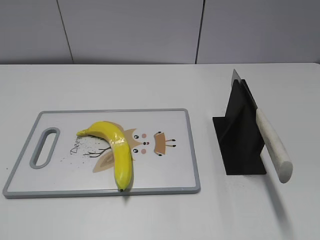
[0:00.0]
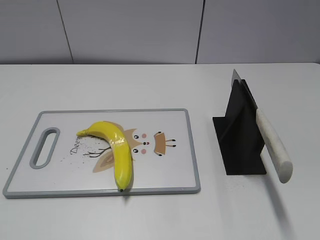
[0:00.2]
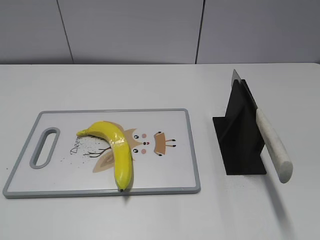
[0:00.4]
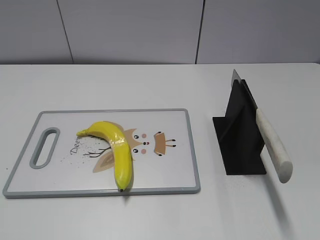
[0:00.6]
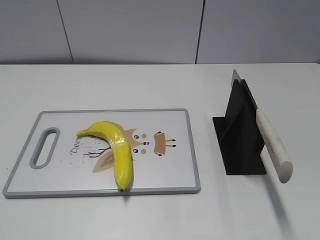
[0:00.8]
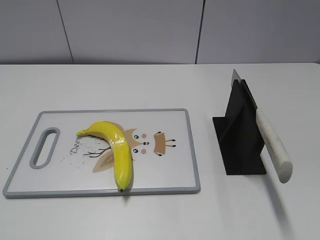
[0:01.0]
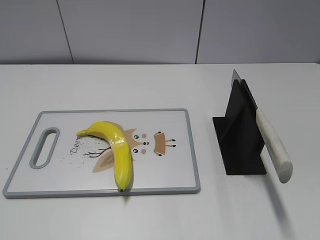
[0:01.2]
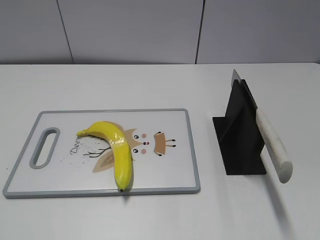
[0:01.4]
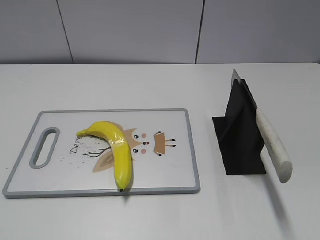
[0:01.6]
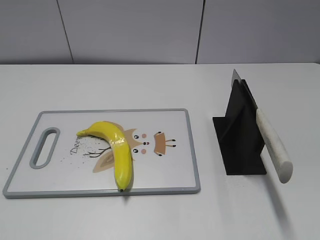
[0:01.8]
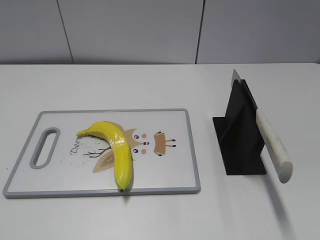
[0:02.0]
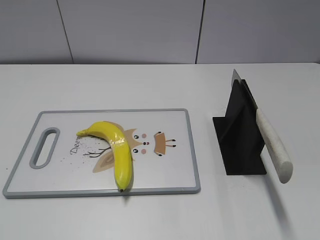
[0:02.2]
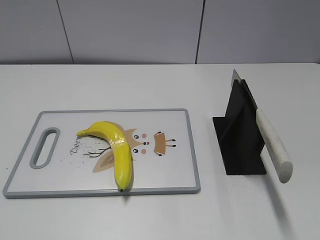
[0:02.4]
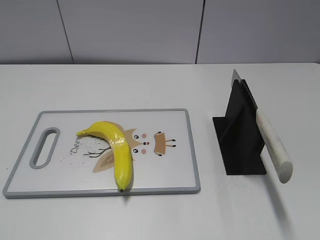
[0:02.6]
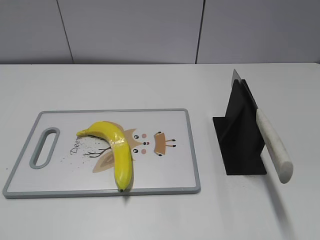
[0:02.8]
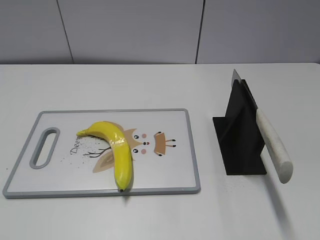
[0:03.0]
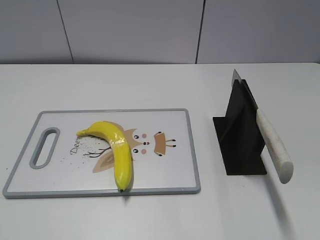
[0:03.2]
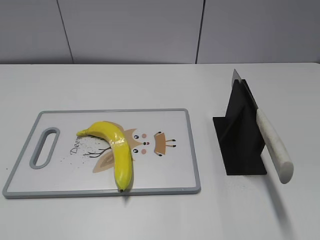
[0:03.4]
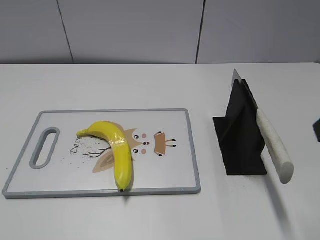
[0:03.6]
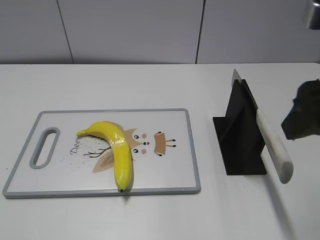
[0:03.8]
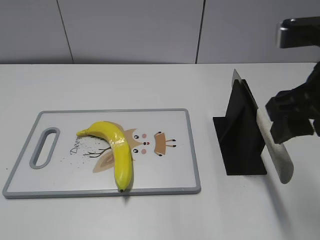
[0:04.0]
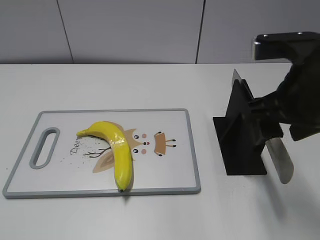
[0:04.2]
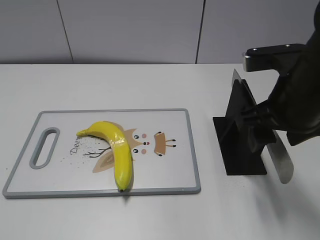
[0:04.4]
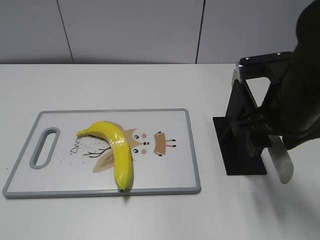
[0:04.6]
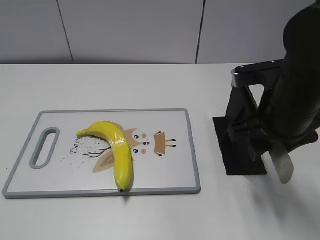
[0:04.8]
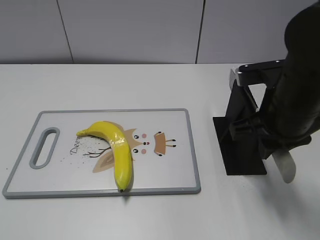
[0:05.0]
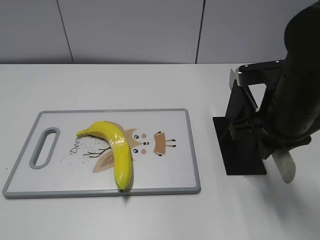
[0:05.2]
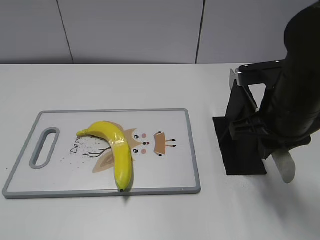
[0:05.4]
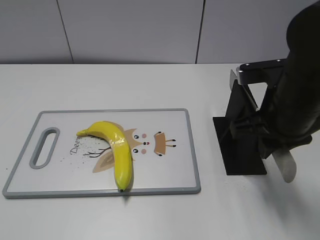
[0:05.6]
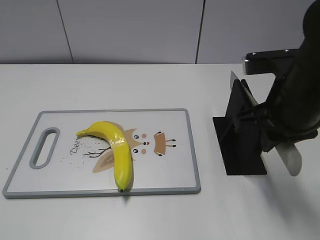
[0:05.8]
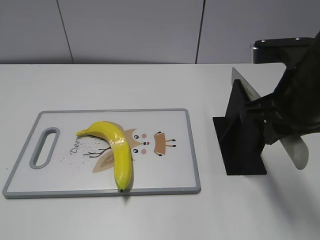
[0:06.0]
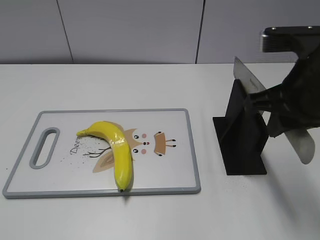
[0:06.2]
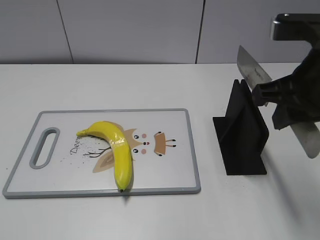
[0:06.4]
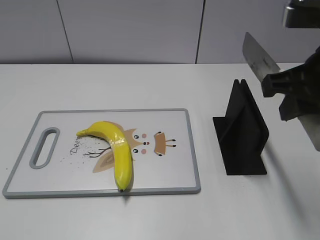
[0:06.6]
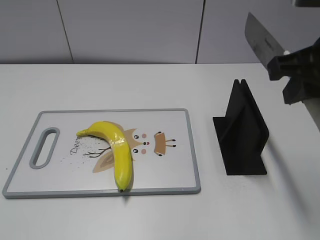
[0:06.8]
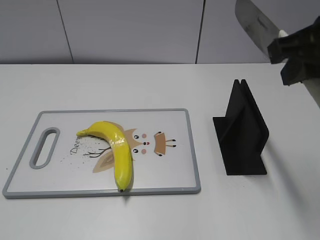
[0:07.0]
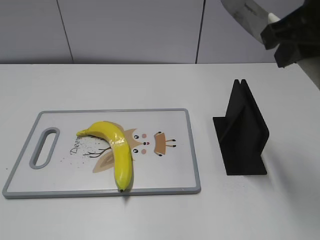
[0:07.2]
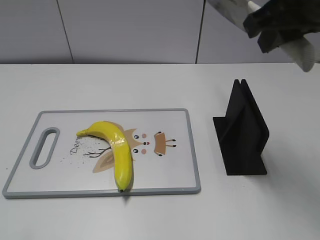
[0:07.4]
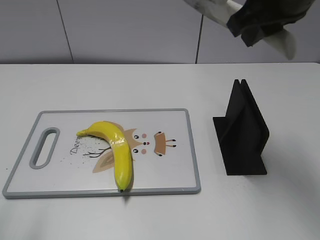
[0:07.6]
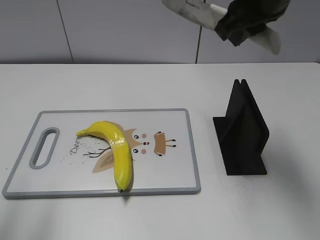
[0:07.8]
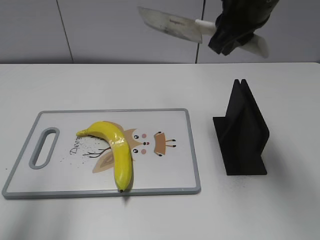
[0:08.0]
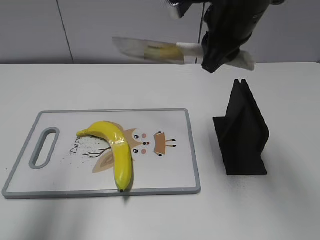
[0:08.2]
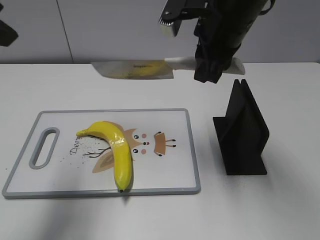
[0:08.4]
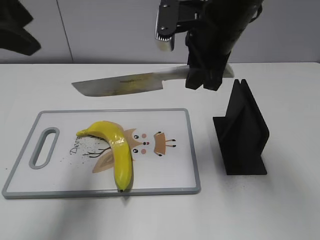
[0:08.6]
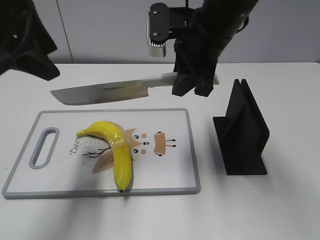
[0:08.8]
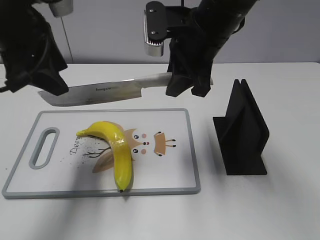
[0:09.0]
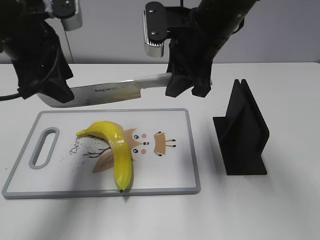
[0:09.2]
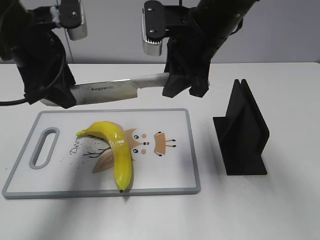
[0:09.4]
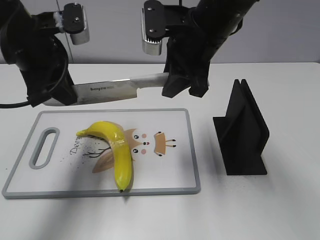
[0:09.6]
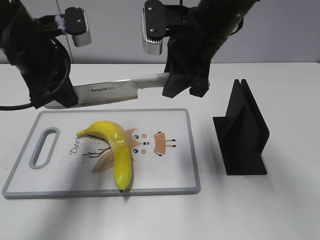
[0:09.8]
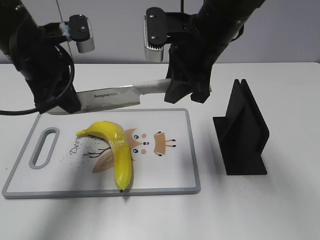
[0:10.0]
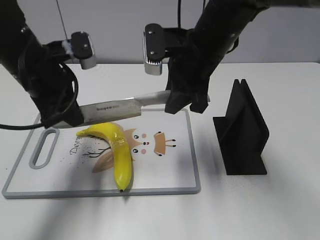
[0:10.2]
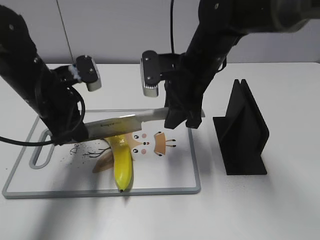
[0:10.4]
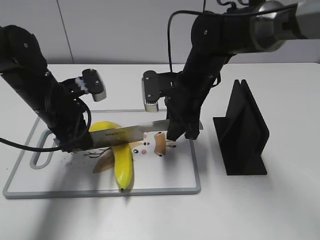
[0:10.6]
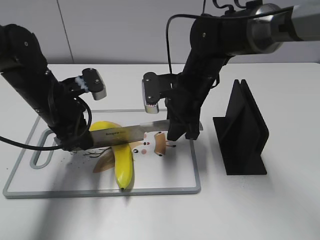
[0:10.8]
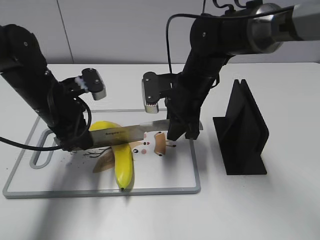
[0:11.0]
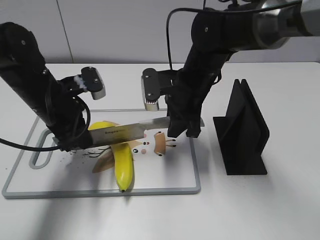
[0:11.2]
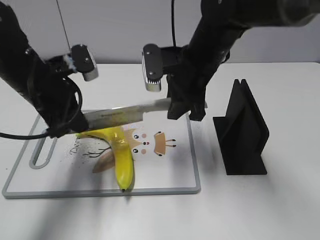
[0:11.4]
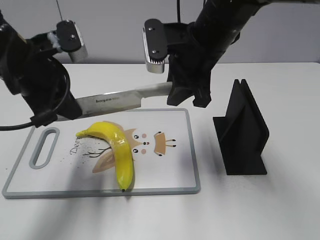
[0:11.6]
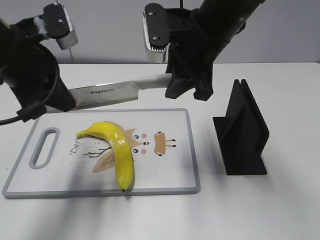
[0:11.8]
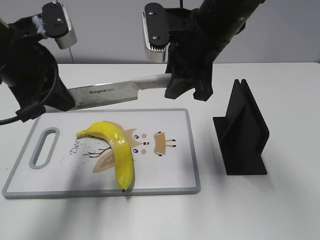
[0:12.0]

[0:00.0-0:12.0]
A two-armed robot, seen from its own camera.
Task of the whole recording: cut plastic banana.
Step, 0:00.0 to 0:06.4: Grab the knife handle with your right hand.
0:03.0 to 0:04.4: The right gripper moves forward, to the left and downward, approximately 20 cm.
0:04.4 to 0:06.0: The right gripper closes.
0:06.0 to 0:07.6: The right gripper heads upward and forward, covering approximately 10 cm.
0:07.6 to 0:09.0: The right gripper shifts about 10 cm downward and to the left; the left gripper travels forward and to the right by about 25 cm.
0:09.0 to 0:10.4: The left gripper moves downward, roughly 10 cm, and closes its fingers. The right gripper is displaced downward by about 5 cm.
0:10.4 to 0:12.0: Both grippers move upward, about 5 cm.

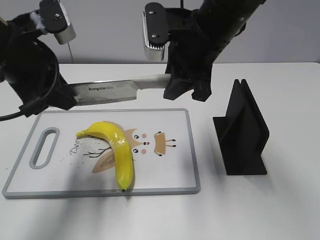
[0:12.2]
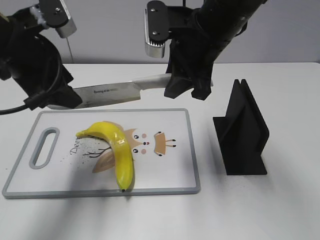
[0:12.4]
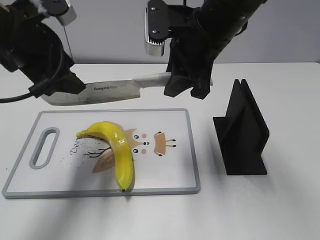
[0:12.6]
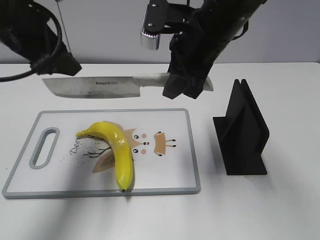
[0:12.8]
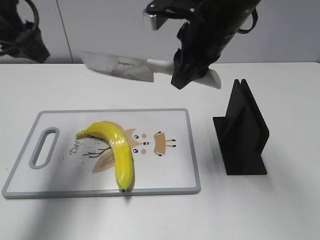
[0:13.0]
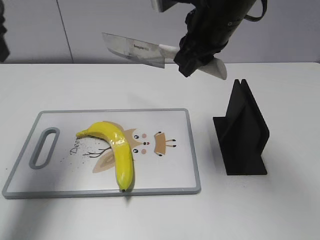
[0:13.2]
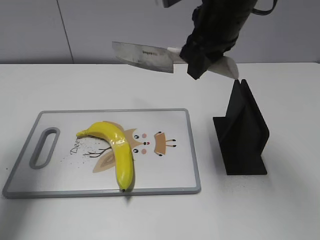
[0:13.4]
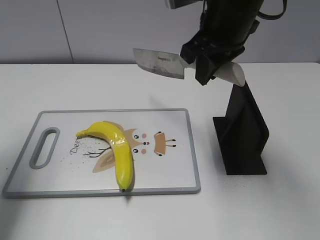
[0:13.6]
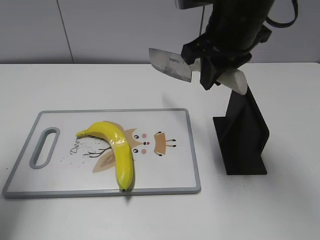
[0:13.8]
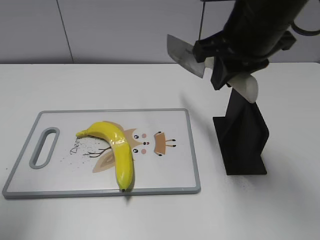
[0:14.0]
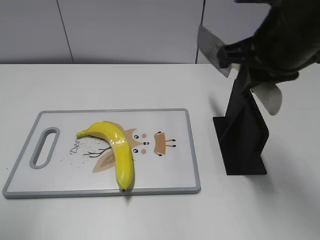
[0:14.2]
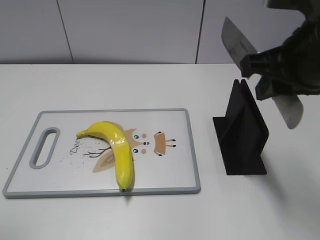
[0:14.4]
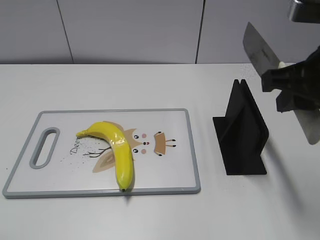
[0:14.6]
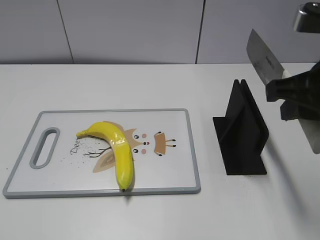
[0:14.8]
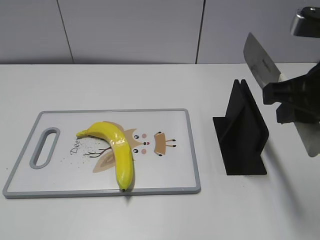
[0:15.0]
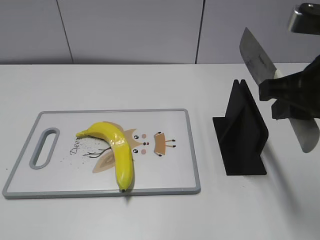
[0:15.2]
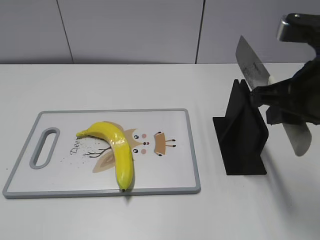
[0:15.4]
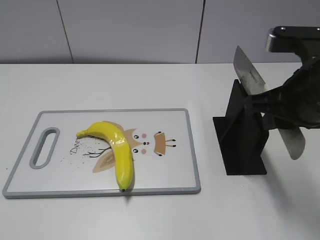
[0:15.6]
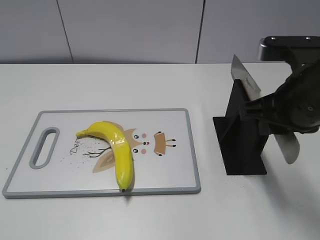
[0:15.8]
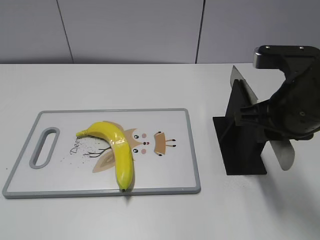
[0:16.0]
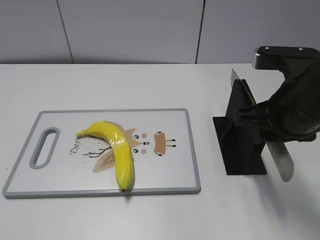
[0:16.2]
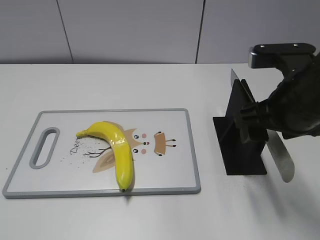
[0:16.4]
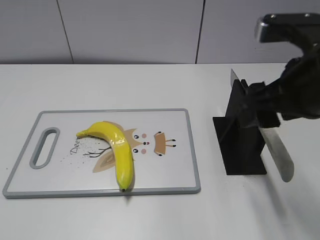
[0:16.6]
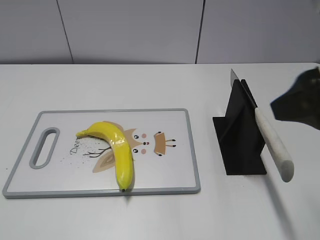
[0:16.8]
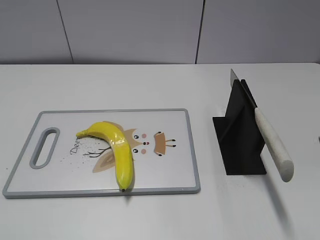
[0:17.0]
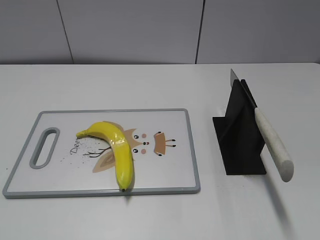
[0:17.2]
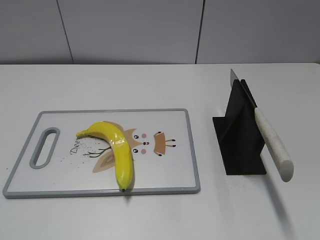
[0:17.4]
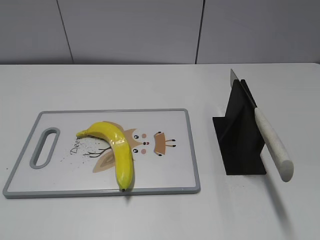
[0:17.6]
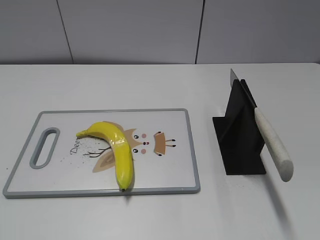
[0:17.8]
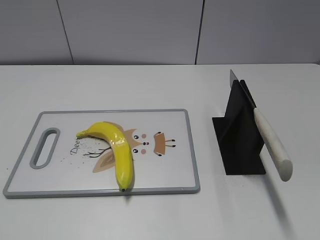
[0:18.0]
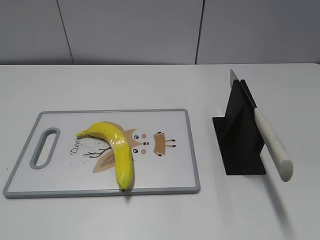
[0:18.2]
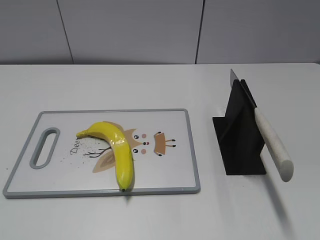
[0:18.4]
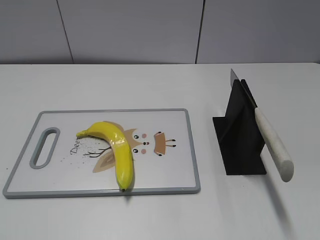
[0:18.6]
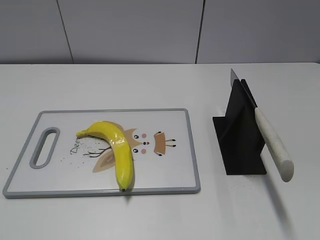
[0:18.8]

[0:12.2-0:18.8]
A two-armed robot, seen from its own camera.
Task of the whole recording: cut plastic banana.
Step, 0:13.4 to 0:14.4: Lift the knife with your right hand.
Step, 0:14.6 to 0:18.8: Place the knife on the storage rack with your right hand.
0:12.2 to 0:13.8: The left gripper travels to the left and upward by about 15 cm, and opens its fingers.
0:13.8 to 0:15.4: The right gripper goes roughly 15 cm backward and to the right. Meanwhile the left gripper travels backward by roughly 25 cm.
0:15.4 to 0:17.2: The right gripper travels backward and to the right by some 15 cm, and opens up.

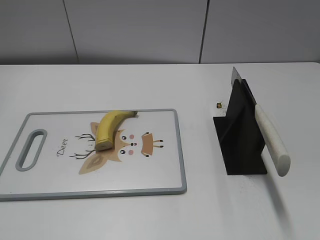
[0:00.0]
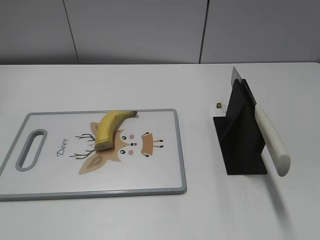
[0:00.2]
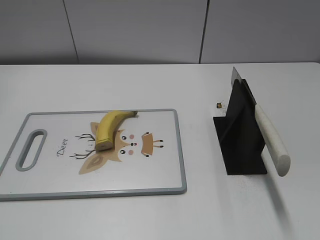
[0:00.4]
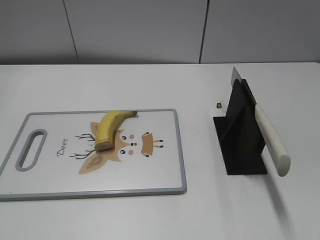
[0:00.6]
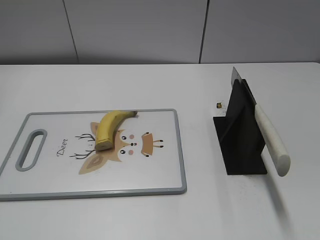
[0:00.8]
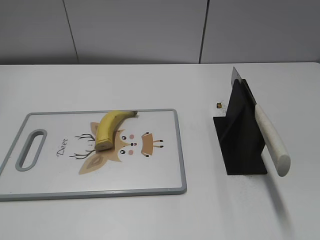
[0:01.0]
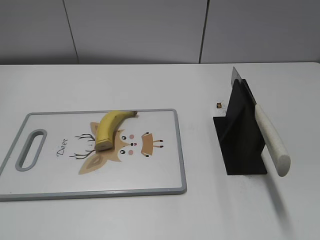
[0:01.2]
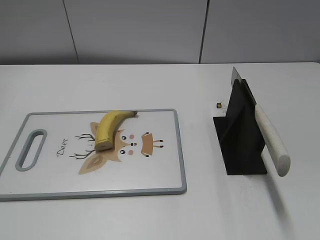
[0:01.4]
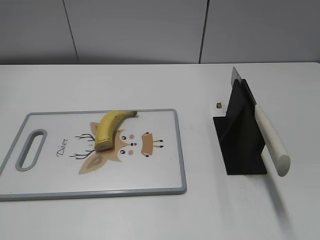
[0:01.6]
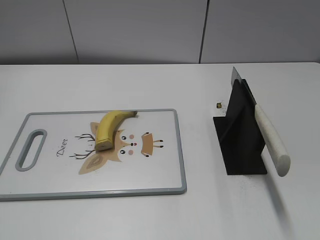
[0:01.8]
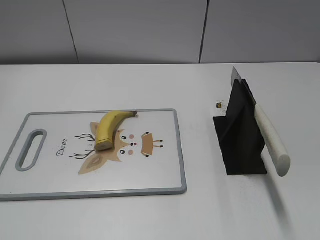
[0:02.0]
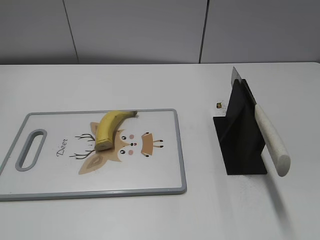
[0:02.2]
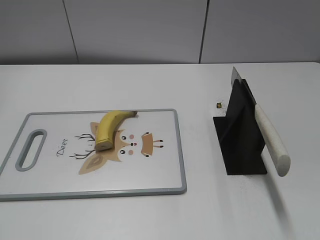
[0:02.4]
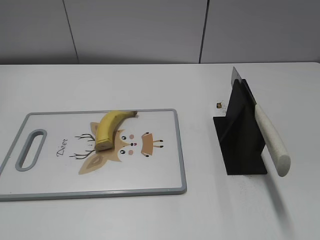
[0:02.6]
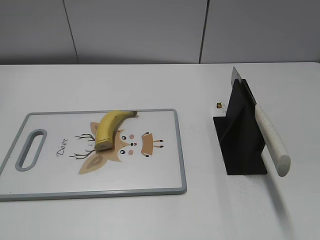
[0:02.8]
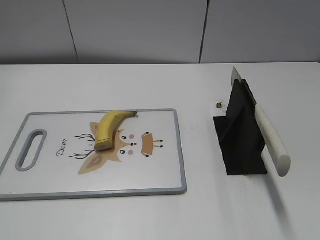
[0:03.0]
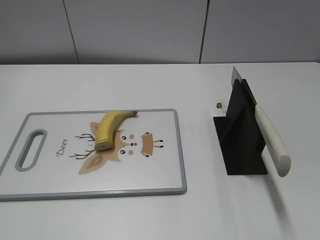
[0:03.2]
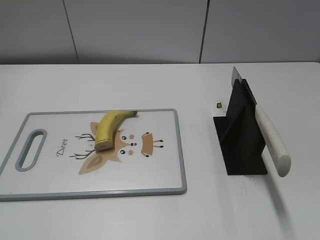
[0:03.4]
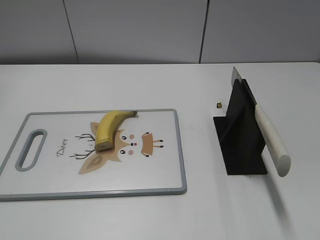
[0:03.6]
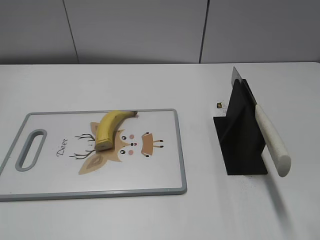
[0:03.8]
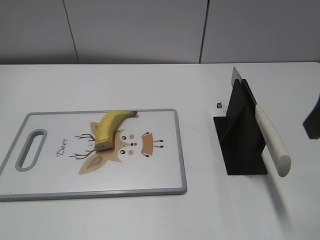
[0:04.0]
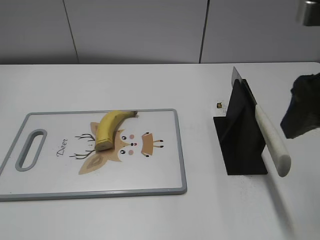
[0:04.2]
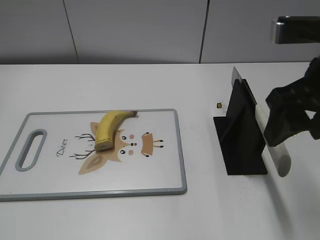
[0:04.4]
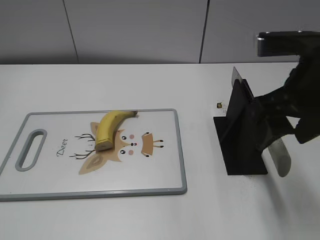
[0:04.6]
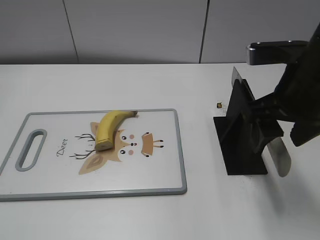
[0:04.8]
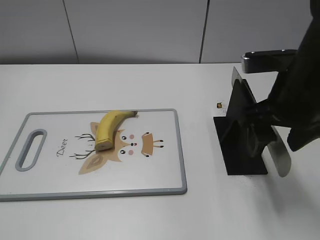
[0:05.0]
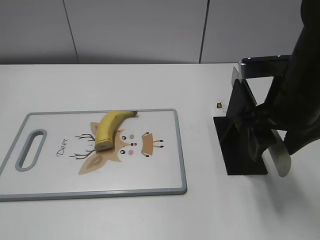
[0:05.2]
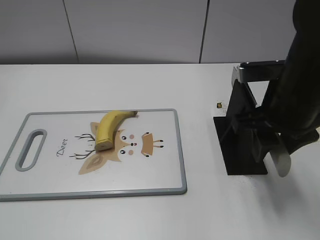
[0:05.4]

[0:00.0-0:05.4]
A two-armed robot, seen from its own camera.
Task of the whole recording: cut banana.
0:02.8 to 0:04.0: The right gripper is displaced forward and to the left by about 15 cm.
0:04.0 to 0:05.4: The right gripper moves downward and forward, some 15 cm, and closes.
